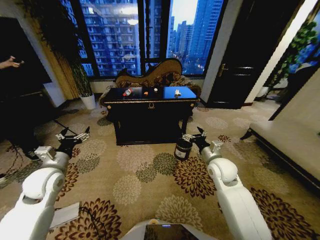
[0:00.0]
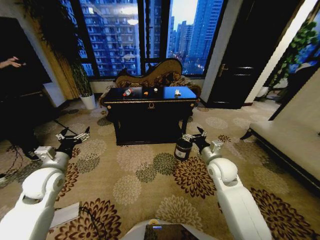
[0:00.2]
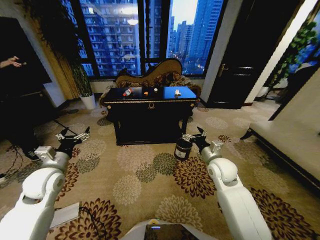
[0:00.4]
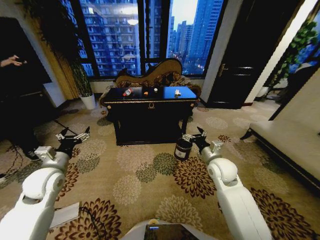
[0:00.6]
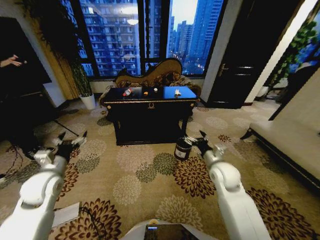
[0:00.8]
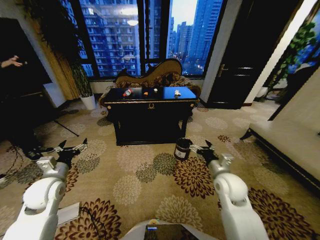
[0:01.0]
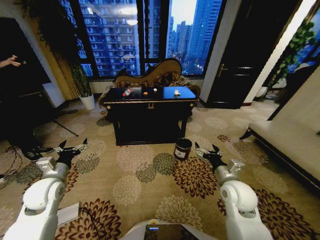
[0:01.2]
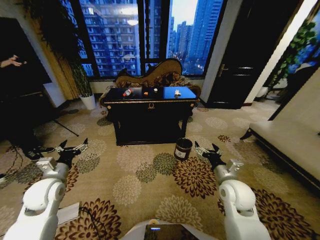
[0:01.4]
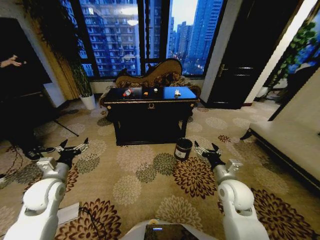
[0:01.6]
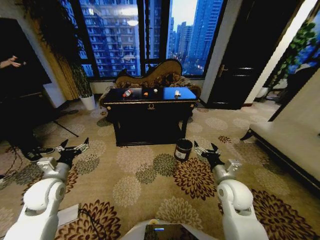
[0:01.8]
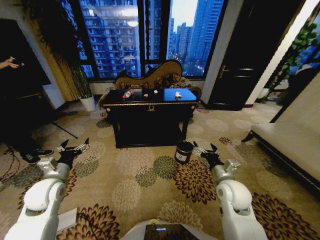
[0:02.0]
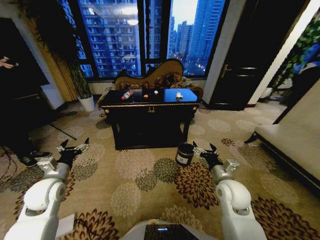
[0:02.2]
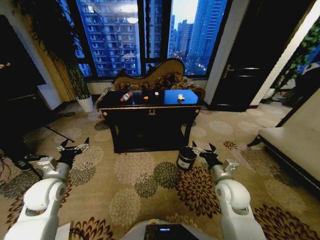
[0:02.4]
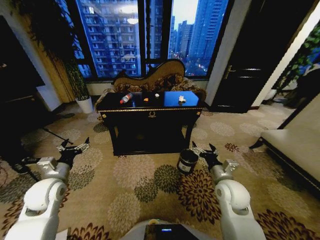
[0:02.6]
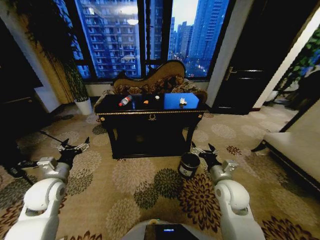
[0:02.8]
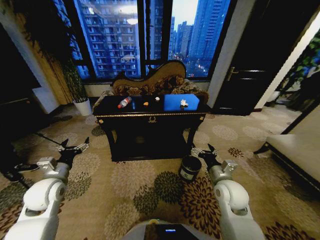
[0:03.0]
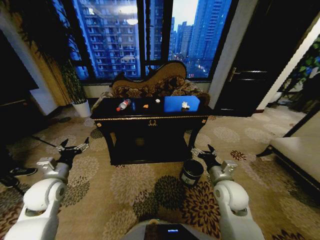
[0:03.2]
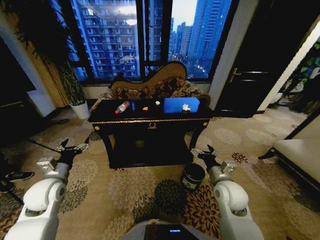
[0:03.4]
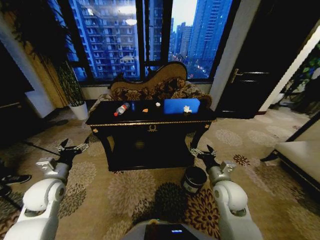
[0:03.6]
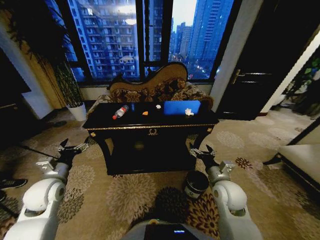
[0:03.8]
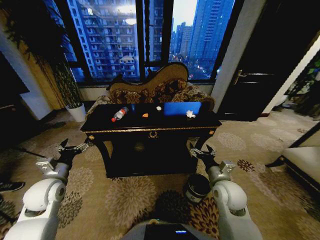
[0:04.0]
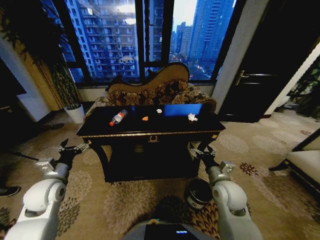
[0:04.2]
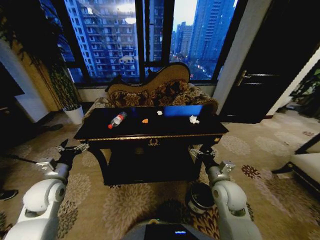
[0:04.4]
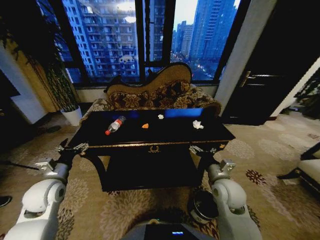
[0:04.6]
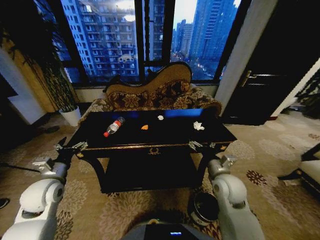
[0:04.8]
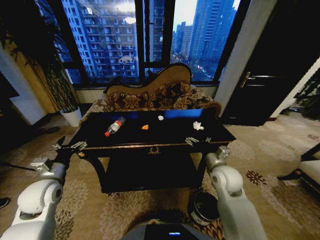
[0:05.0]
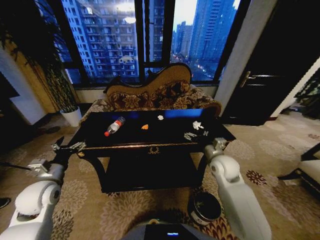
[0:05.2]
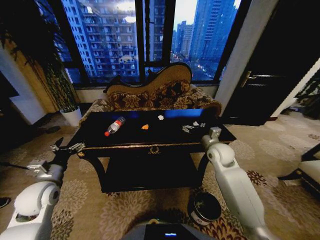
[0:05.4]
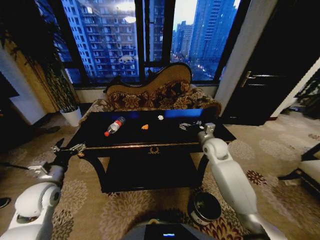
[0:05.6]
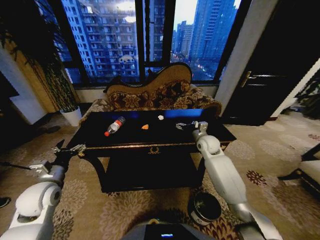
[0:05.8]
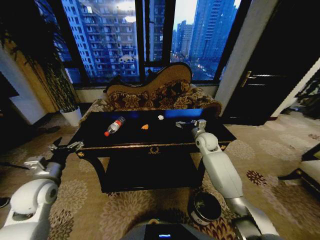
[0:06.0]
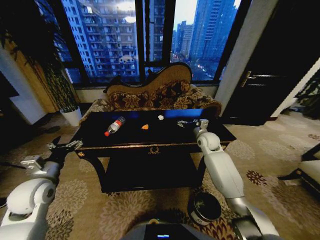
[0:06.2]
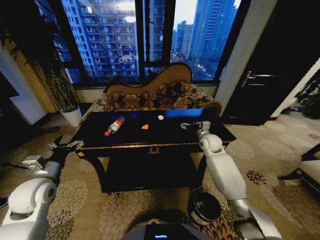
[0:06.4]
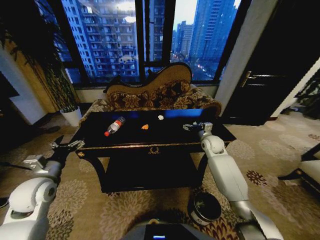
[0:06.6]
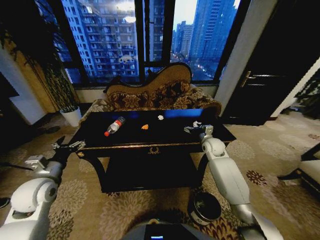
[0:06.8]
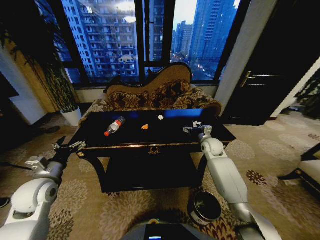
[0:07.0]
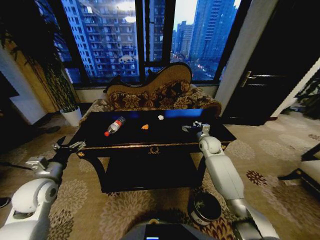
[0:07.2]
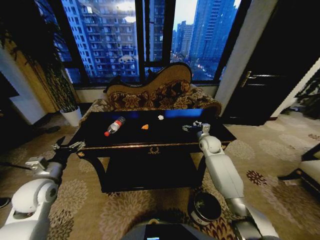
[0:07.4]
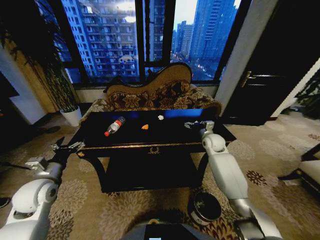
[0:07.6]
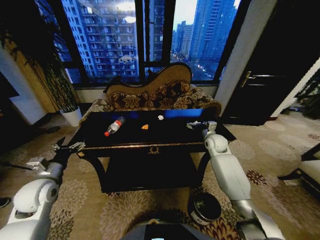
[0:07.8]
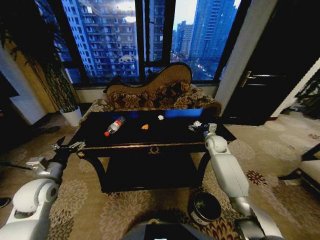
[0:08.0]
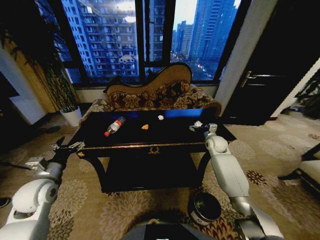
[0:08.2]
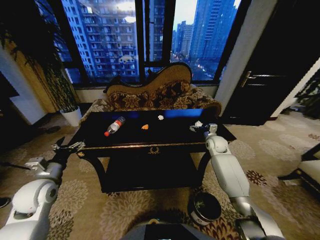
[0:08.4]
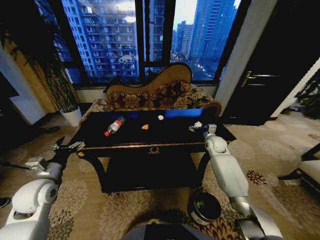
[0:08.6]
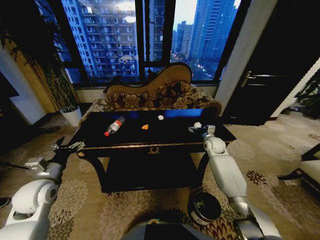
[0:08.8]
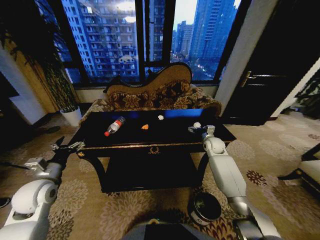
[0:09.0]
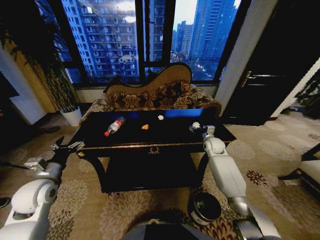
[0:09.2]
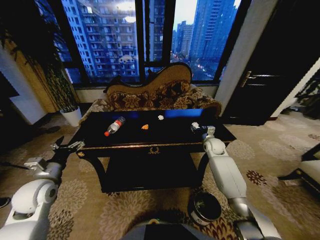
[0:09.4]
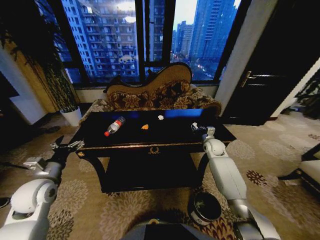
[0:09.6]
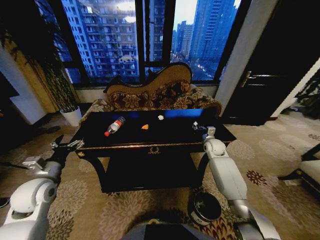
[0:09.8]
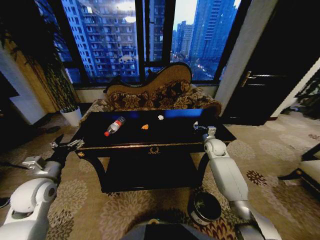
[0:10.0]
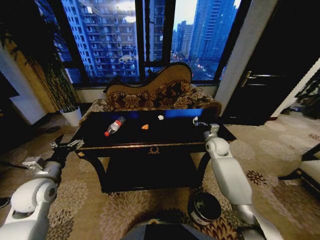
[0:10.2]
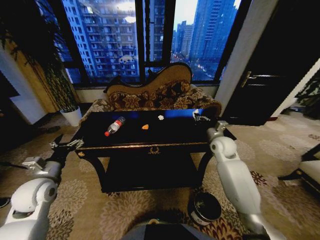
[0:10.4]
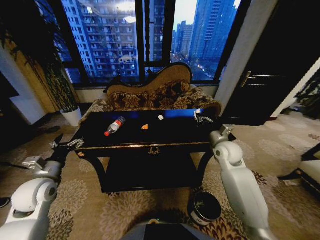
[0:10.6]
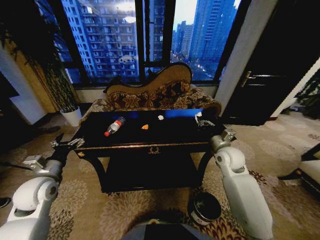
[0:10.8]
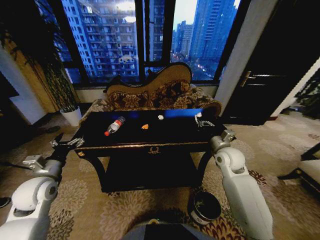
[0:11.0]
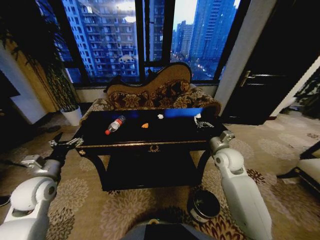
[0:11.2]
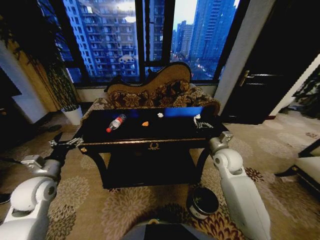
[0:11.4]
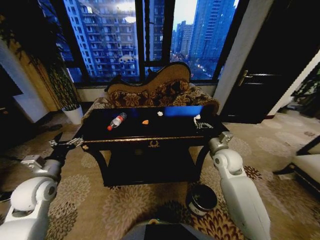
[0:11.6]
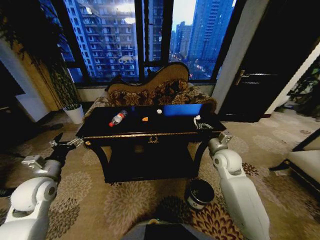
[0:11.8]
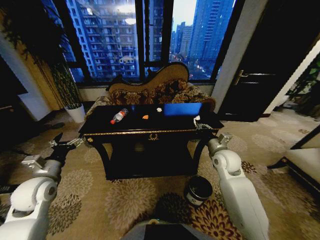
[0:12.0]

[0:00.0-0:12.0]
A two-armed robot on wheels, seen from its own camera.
Task of the whole recording: Move to the front of the table and place the trash on the table into the trash bin.
0:04.4 to 0:06.0: The right gripper is displaced forward by about 25 cm.
0:06.0 to 0:07.6: The grippers stay close to where they were, moving slightly.
0:07.6 to 0:09.0: The right gripper moves approximately 5 cm.
0:09.0 to 0:10.4: The right gripper goes approximately 10 cm upward and backward, and closes its fingers.
0:10.4 to 0:12.0: The right gripper goes roughly 5 cm backward.

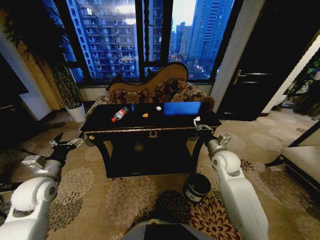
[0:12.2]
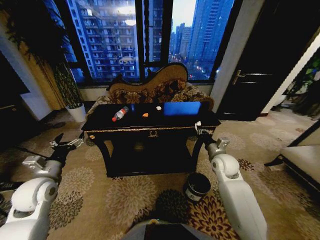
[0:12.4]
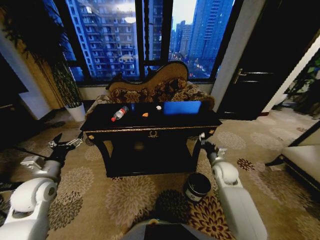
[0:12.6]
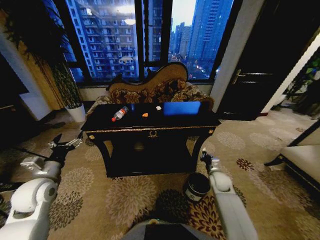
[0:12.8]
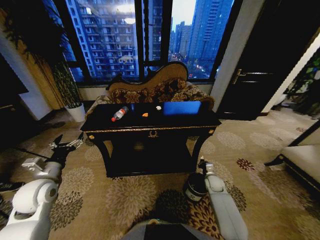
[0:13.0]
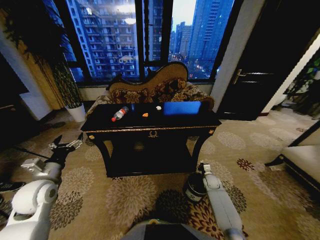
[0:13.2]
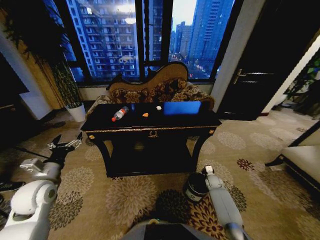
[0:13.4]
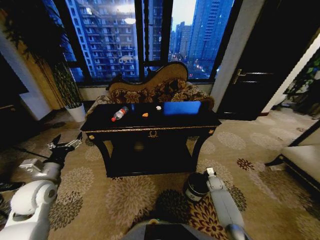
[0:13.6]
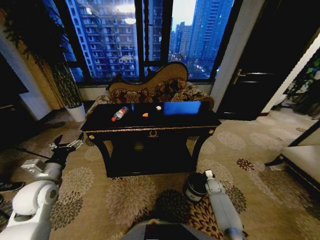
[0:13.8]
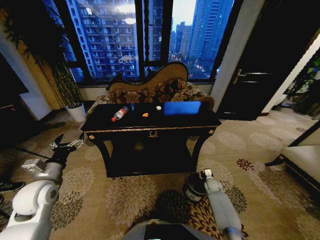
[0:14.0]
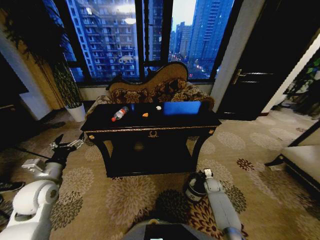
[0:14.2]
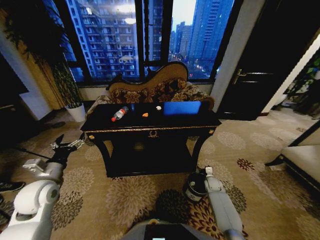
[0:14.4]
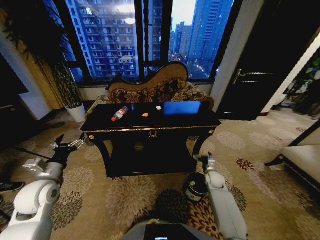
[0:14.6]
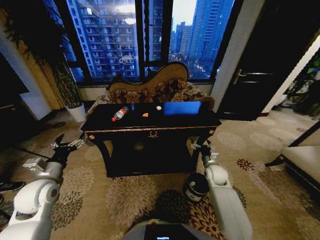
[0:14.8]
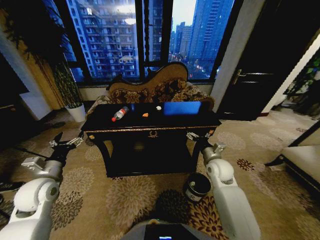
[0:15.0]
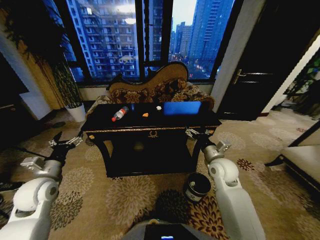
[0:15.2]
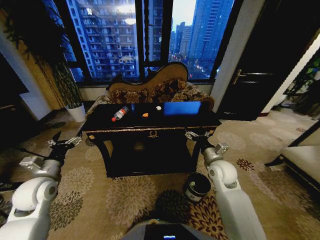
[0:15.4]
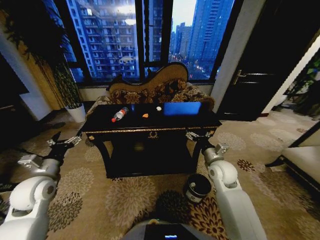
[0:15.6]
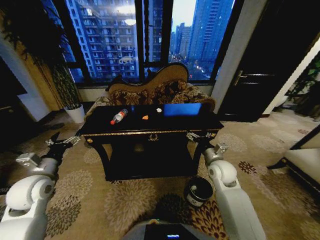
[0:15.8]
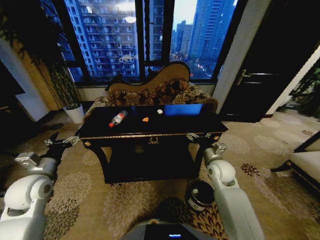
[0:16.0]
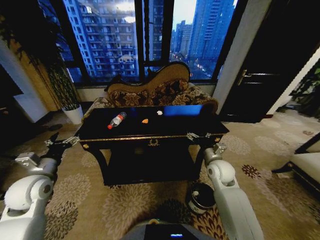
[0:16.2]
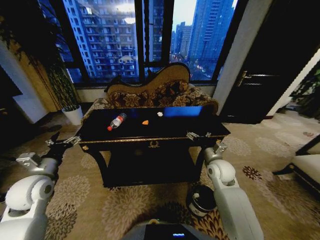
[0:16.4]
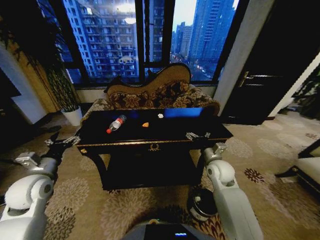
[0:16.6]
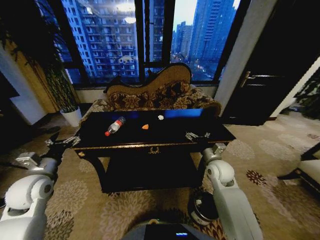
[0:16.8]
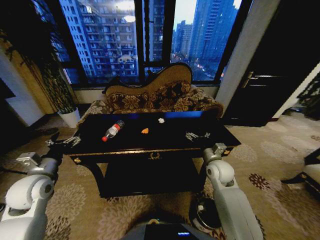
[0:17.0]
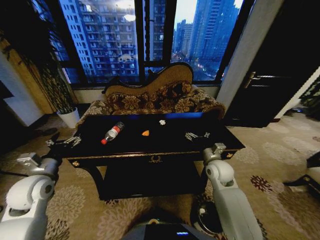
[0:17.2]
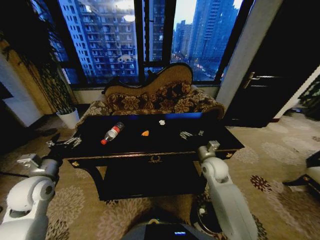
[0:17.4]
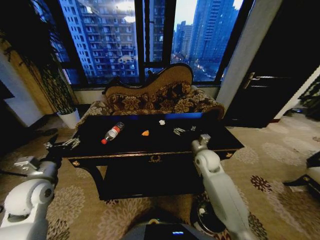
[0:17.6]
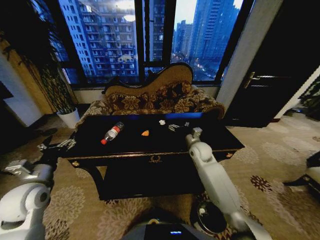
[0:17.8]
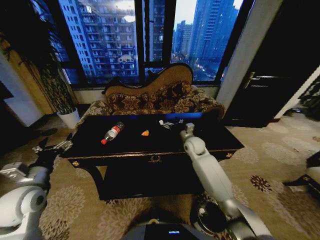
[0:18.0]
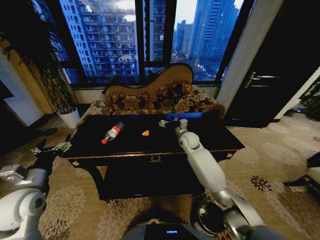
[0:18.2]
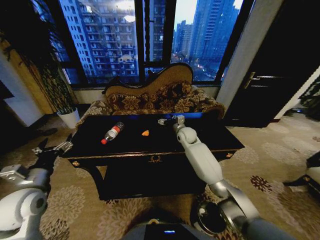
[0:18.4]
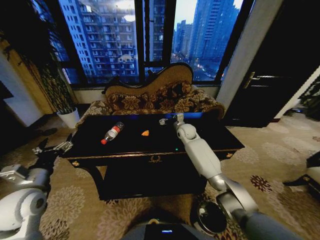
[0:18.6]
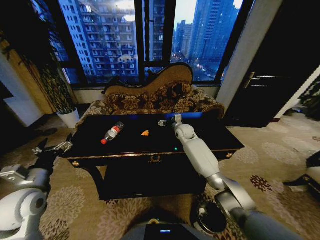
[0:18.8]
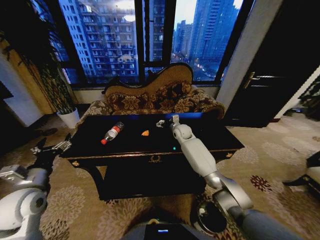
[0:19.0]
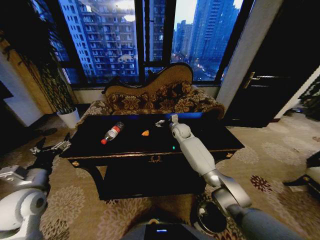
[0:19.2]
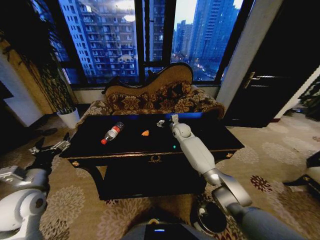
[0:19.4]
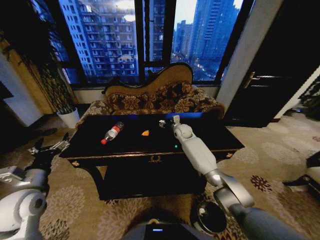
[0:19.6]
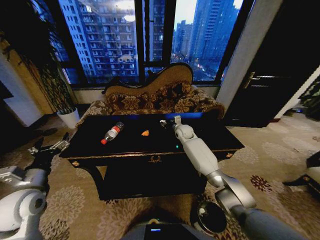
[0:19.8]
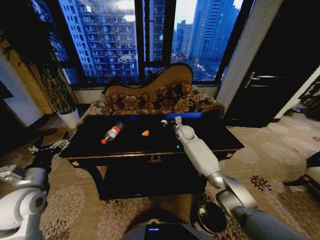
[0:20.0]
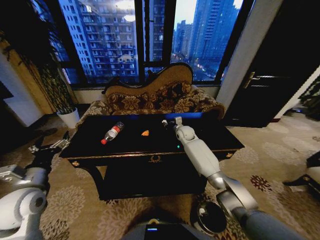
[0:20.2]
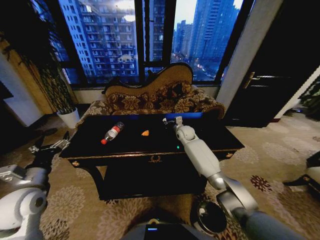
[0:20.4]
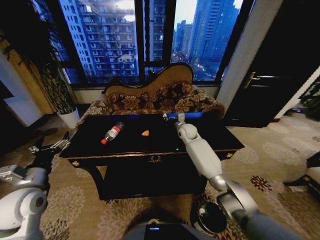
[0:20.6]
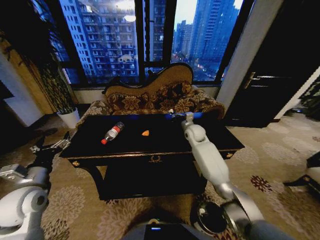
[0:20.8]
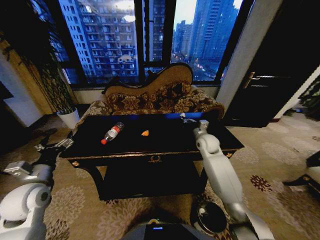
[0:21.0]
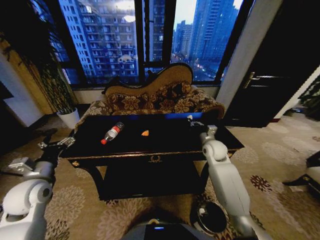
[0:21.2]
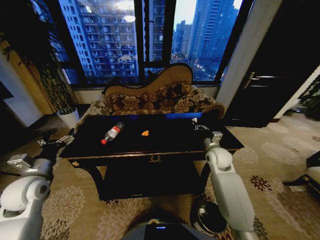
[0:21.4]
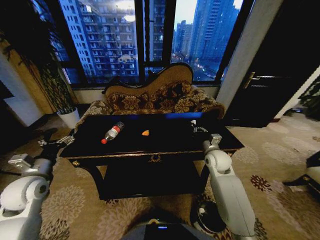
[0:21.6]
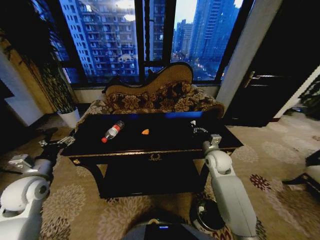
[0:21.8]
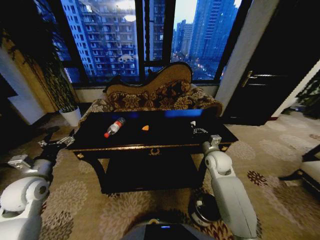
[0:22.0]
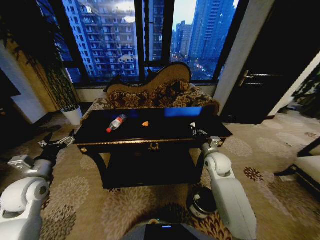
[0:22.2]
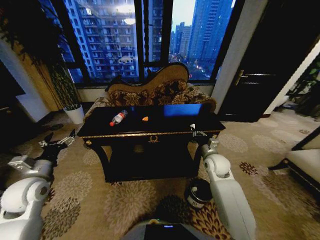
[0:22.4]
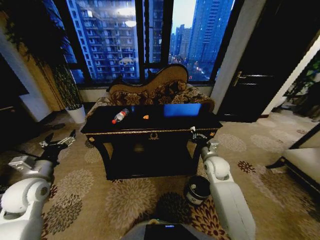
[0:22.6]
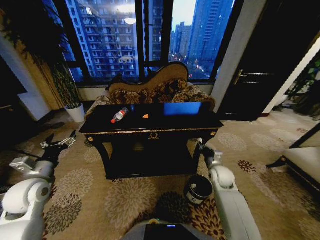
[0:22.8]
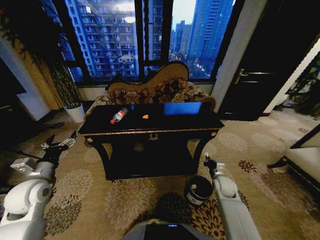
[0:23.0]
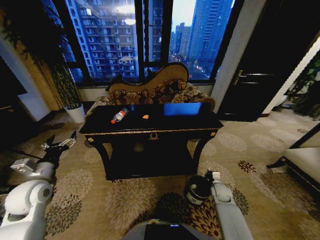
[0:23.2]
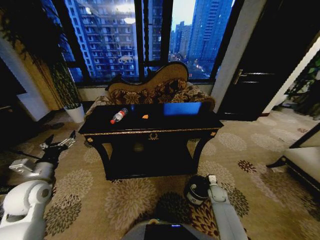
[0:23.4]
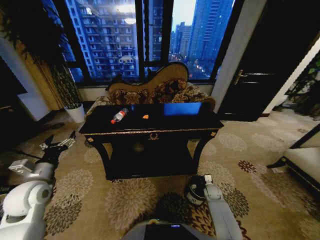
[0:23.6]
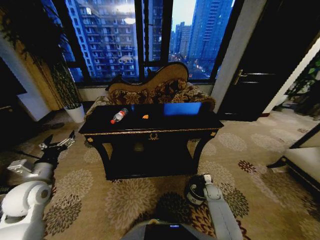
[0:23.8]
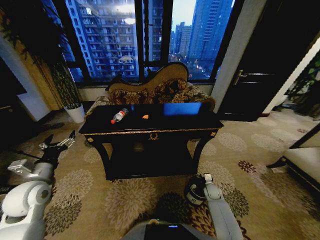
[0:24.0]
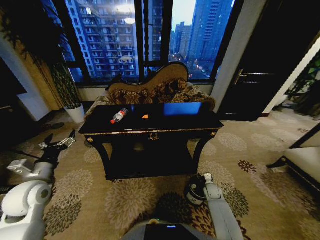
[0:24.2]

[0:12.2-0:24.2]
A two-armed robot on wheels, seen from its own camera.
Task of the whole recording: Move to the front of the table and place the trash on the table into the trash bin.
0:12.2 to 0:13.8: The right gripper moves downward, some 30 cm.
0:13.8 to 0:15.2: The right gripper travels upward by about 30 cm, and opens.
0:16.6 to 0:18.2: The right gripper travels forward and to the left by roughly 20 cm.
0:18.2 to 0:19.8: The right gripper heads forward, covering about 5 cm, and closes its fingers.
0:19.8 to 0:21.2: The right gripper heads backward and to the right, covering approximately 20 cm, and closes its fingers.
0:21.2 to 0:22.6: The right gripper travels backward by about 5 cm.
0:22.6 to 0:24.2: The right gripper goes some 25 cm downward, and opens its fingers.
